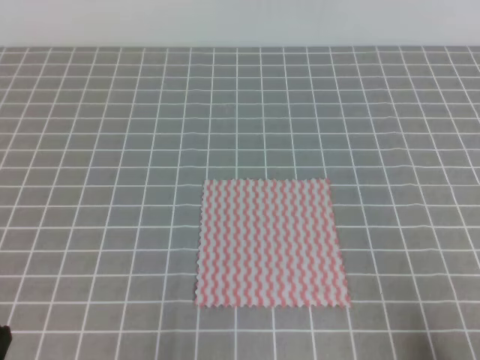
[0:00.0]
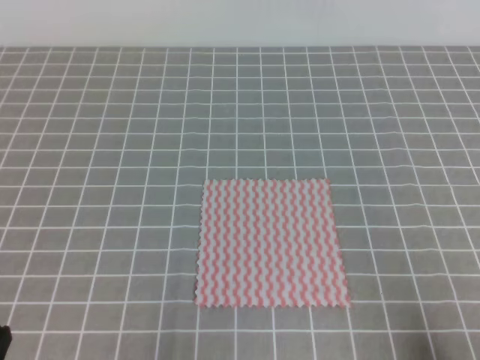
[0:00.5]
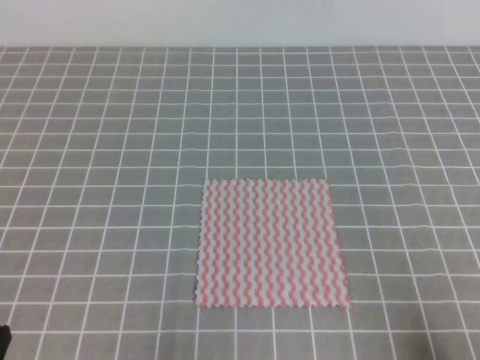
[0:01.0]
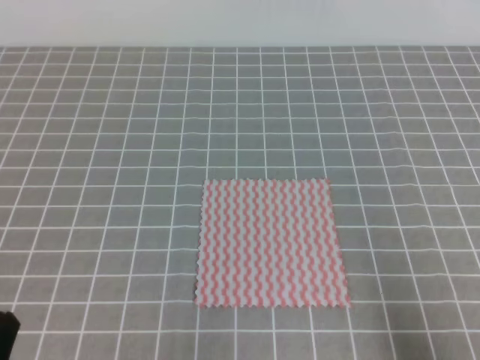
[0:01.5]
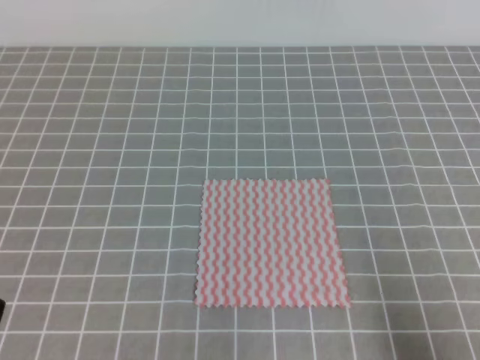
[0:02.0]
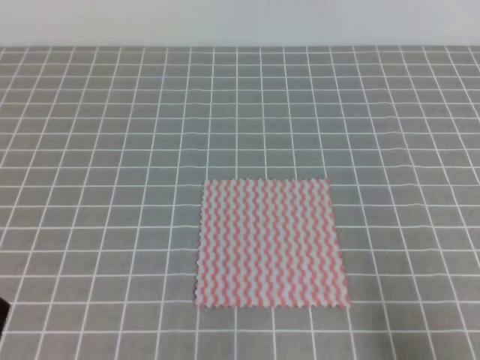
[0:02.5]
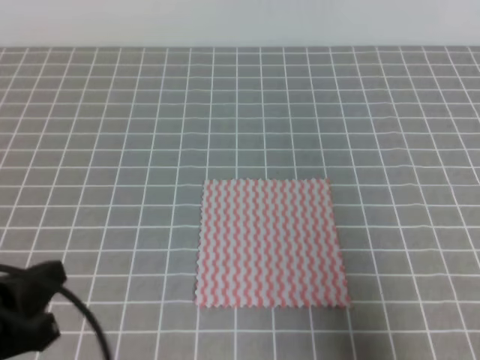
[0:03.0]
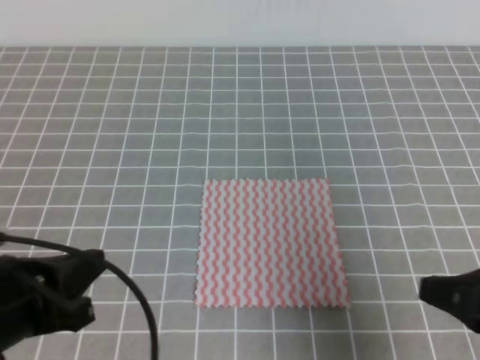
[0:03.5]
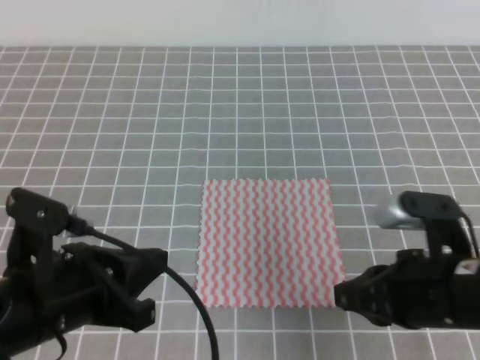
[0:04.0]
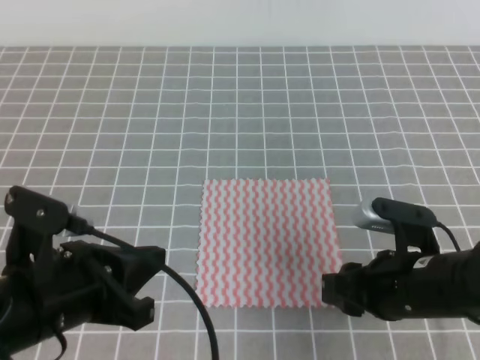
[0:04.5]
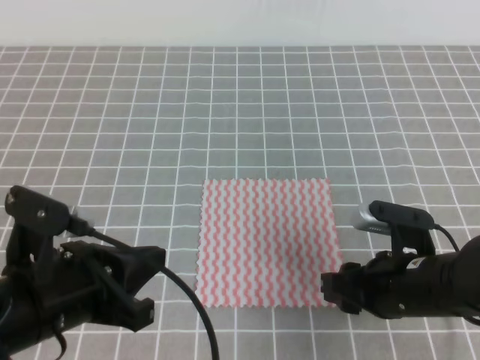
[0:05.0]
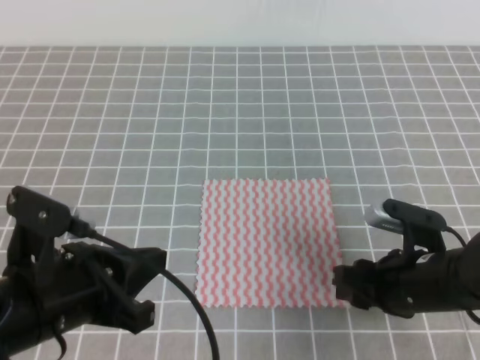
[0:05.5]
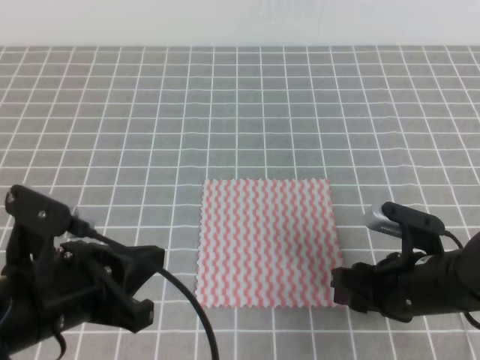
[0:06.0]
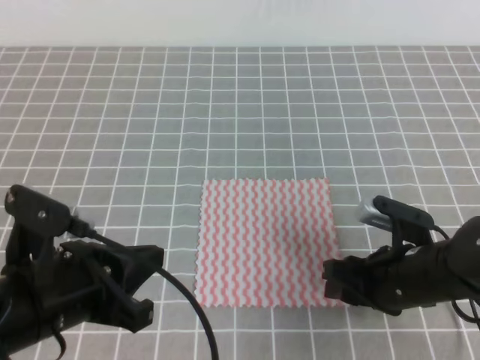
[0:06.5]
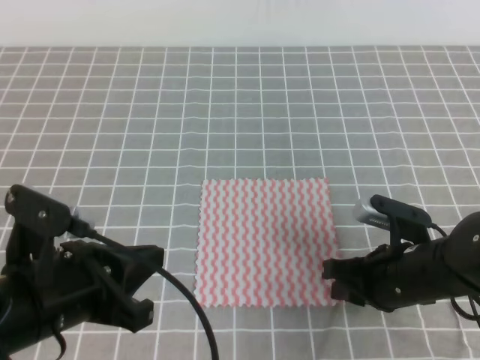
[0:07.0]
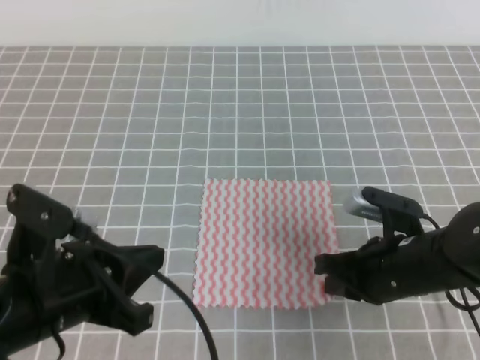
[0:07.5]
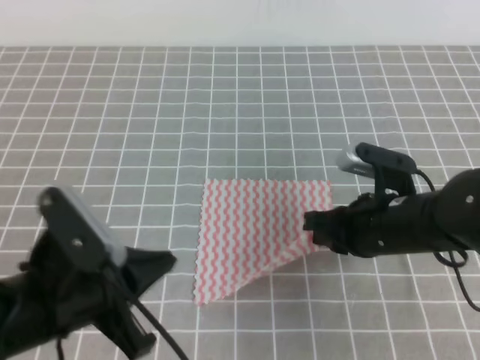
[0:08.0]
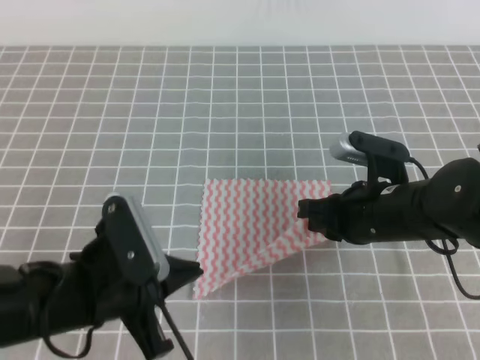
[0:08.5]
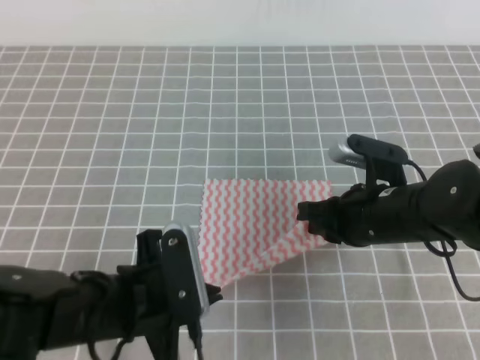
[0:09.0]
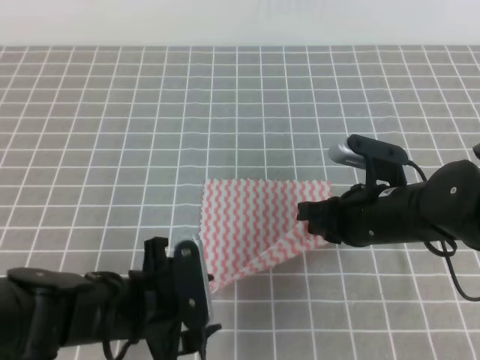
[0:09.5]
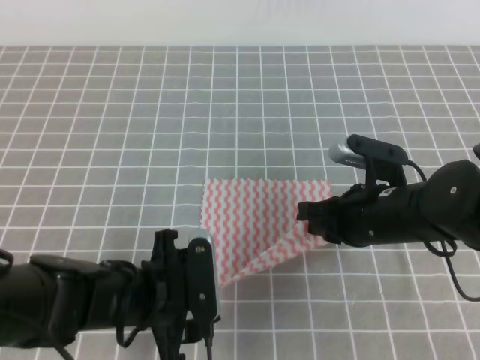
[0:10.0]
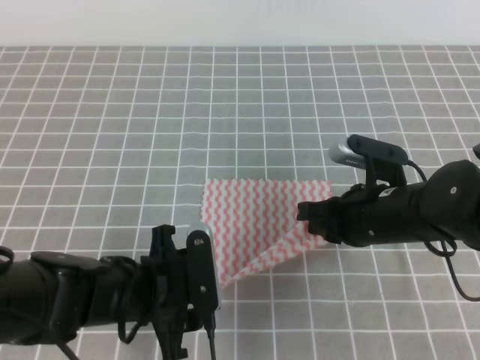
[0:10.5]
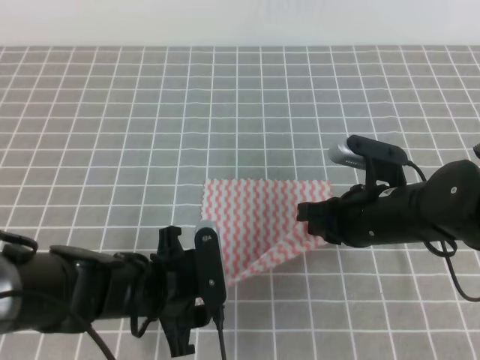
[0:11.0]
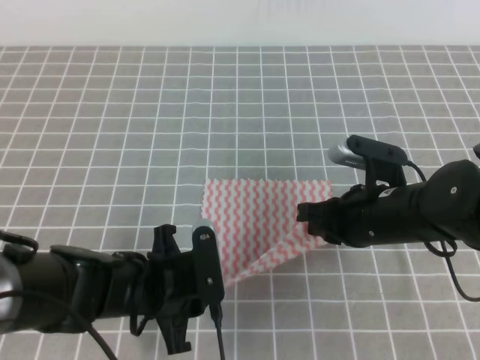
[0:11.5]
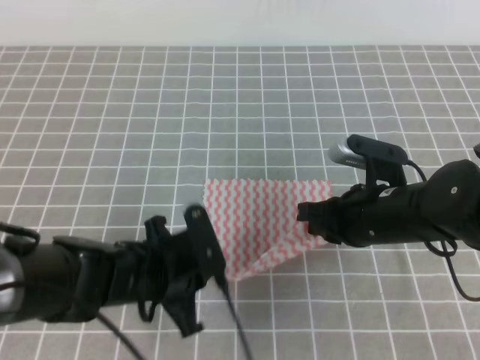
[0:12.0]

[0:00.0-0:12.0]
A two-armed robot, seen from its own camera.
0:02.0 to 0:04.0: The right gripper is displaced to the left and forward by approximately 20 cm. Meanwhile the left gripper is displaced forward and to the right by roughly 15 cm.
0:04.0 to 0:06.0: The right gripper shifts roughly 10 cm downward and forward, and opens.
0:06.0 to 0:08.0: The right gripper changes place by about 5 cm, and closes its fingers.
0:08.0 to 0:10.0: The left gripper heads downward and to the right, covering approximately 10 cm, and opens its fingers.
0:10.0 to 0:12.0: The left gripper closes its fingers.

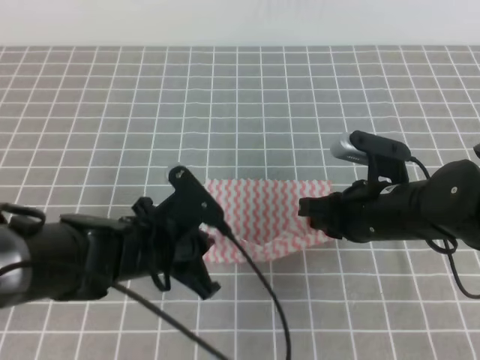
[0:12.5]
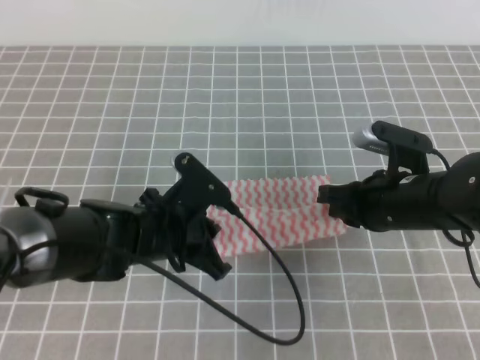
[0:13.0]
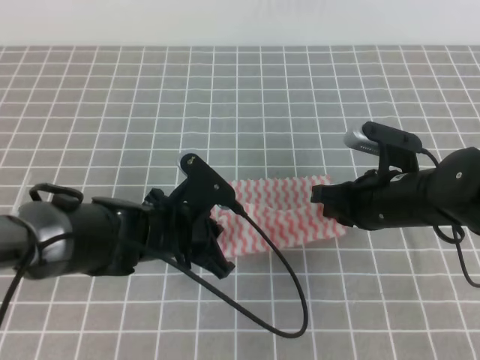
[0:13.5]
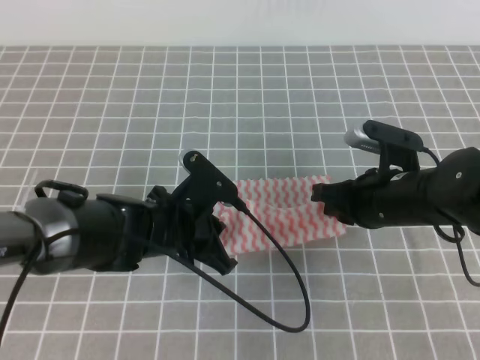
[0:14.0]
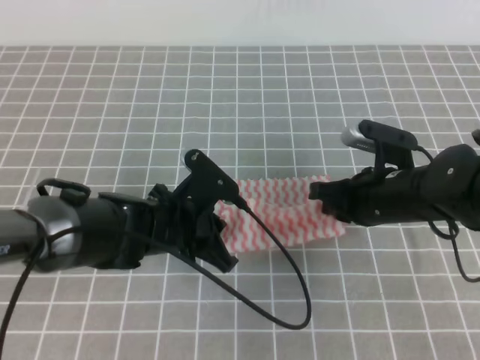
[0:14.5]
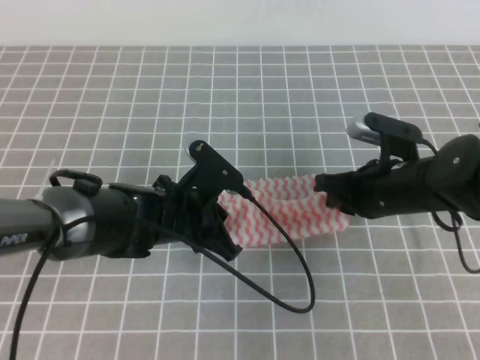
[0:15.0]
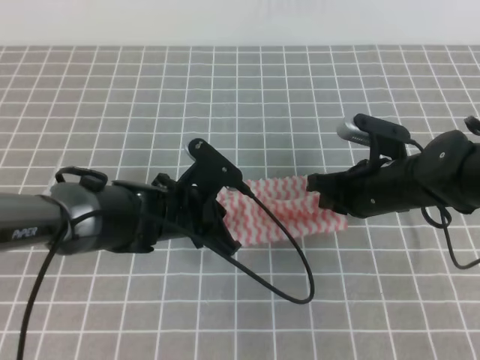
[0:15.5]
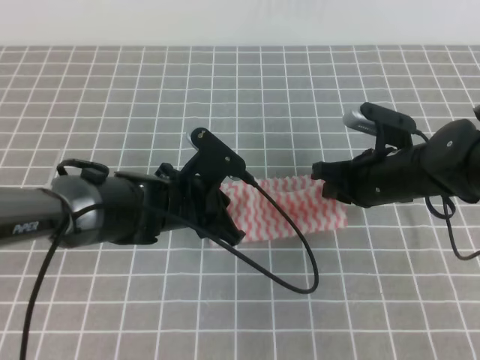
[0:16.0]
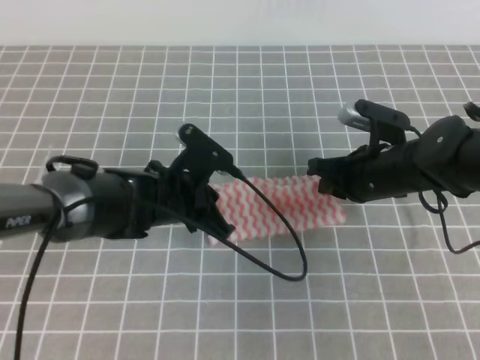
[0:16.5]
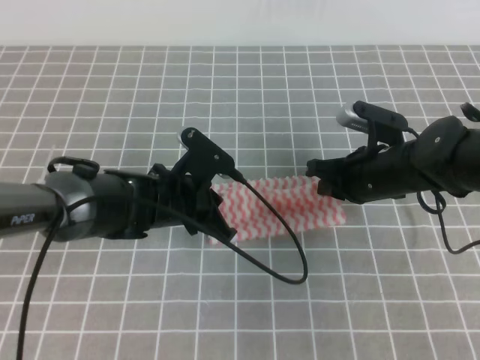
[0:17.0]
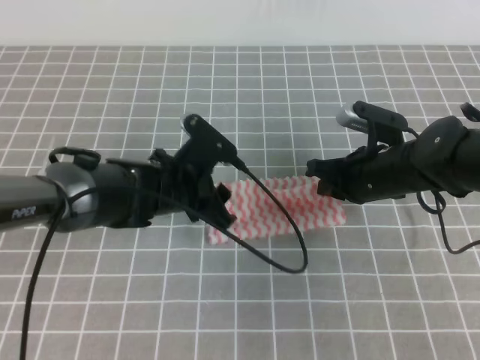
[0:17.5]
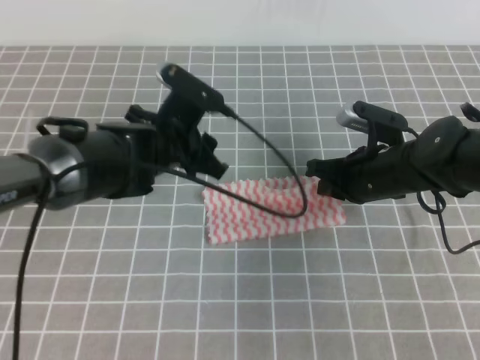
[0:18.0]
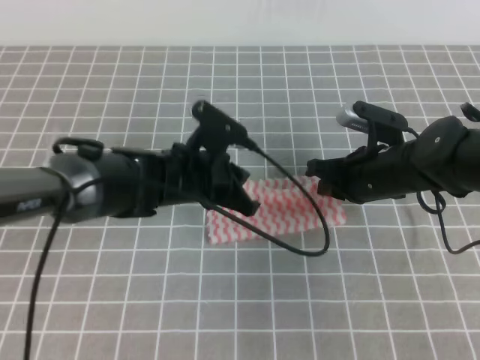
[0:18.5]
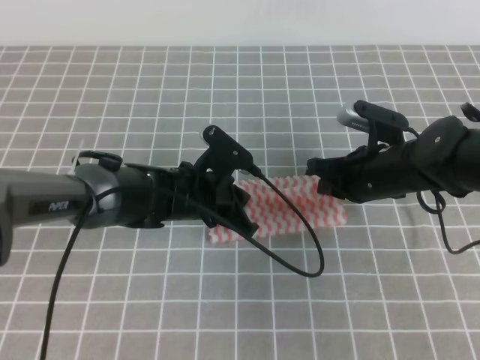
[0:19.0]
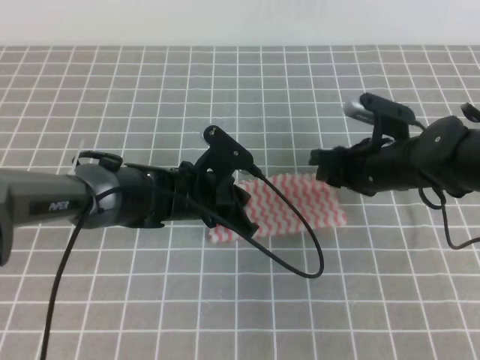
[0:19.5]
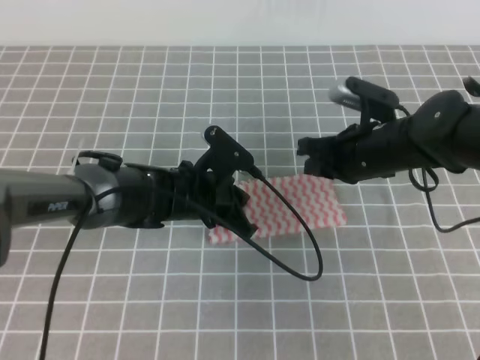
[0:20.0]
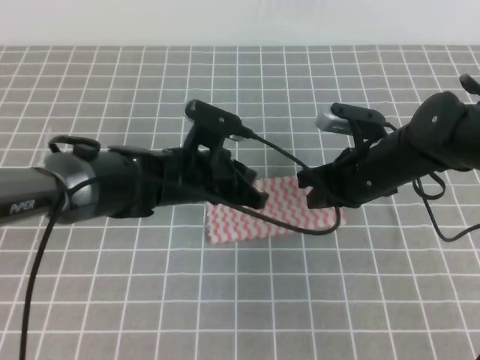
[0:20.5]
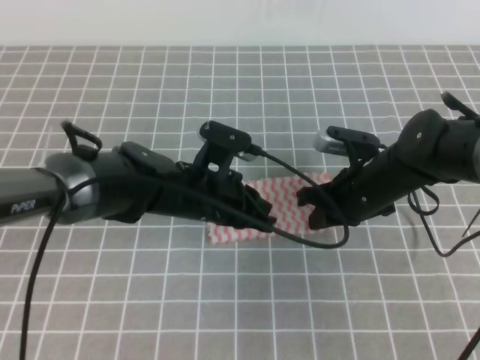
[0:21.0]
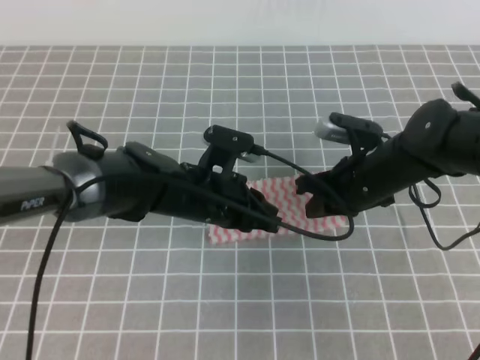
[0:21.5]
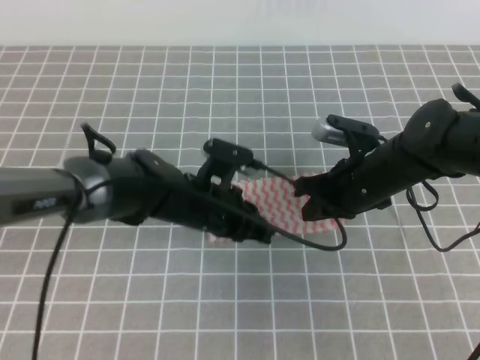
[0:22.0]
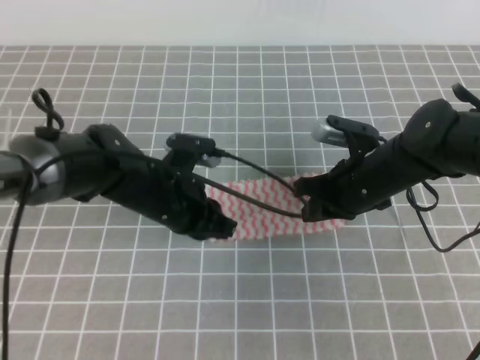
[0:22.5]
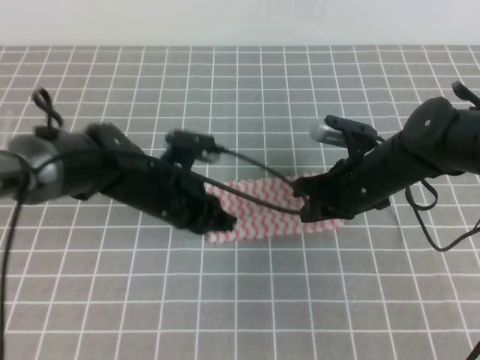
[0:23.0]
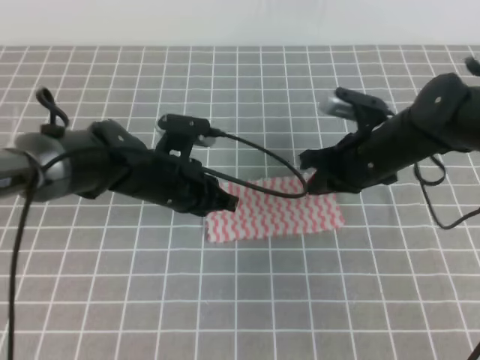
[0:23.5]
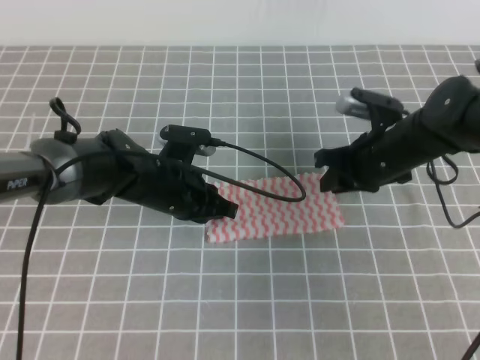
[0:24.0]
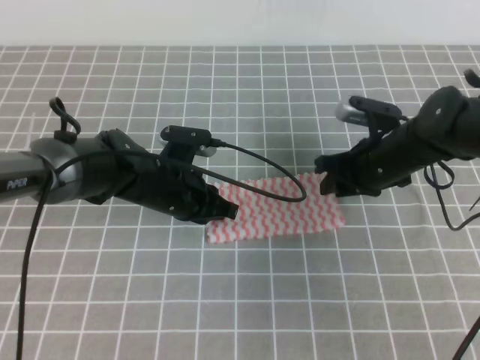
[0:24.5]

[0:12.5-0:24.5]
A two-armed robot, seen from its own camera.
0:12.5 to 0:14.5: There are only small adjustments of the grippers.
0:16.5 to 0:18.5: The left gripper opens and closes again.
0:18.5 to 0:20.5: The right gripper opens, then closes again.
0:22.5 to 0:24.5: The right gripper opens up.

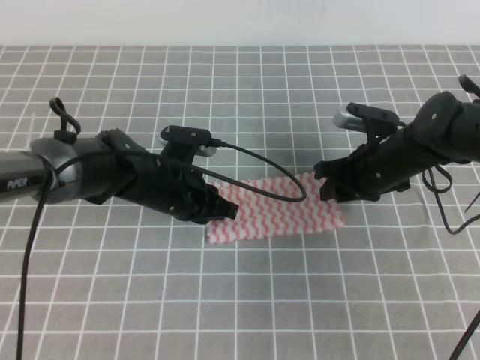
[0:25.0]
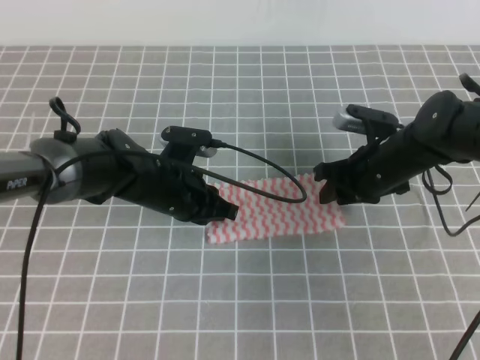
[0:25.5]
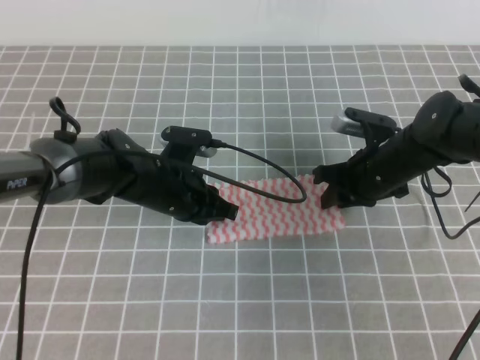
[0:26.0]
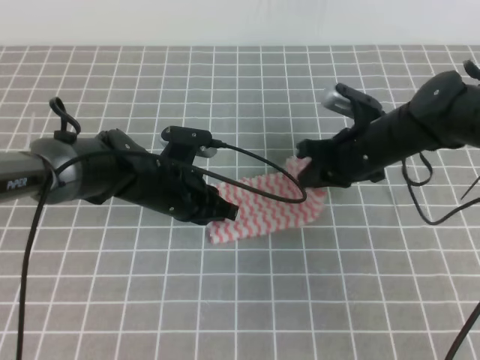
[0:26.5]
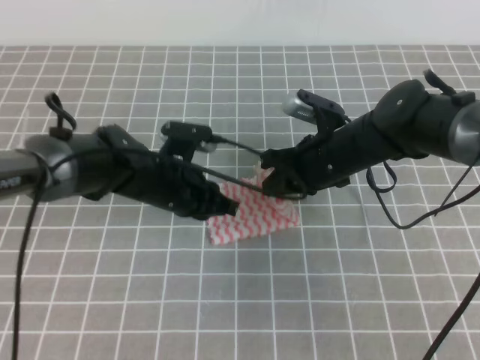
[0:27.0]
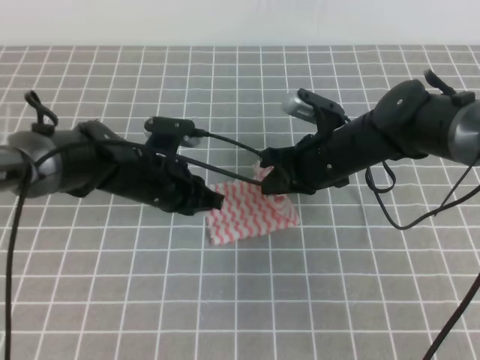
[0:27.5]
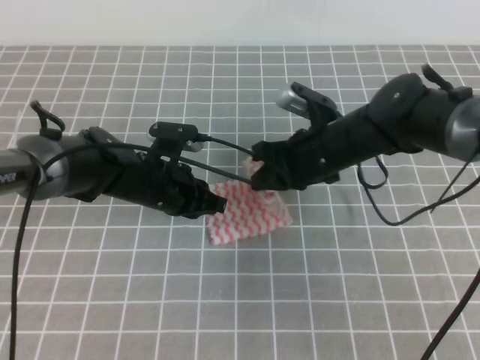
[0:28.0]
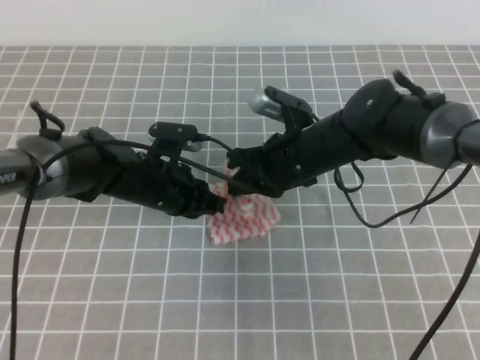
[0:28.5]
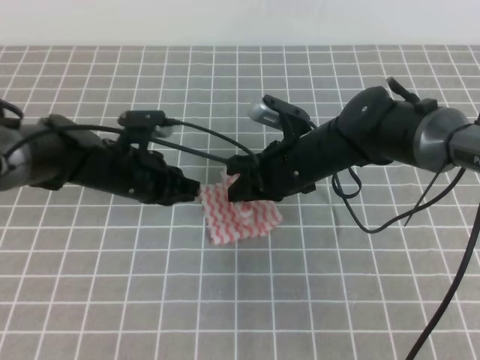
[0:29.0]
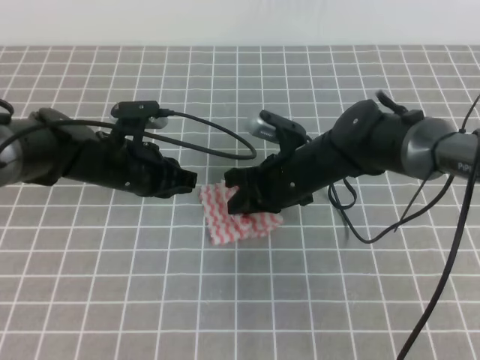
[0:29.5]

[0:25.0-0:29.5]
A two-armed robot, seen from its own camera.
0:25.0 to 0:27.0: The right gripper is displaced to the left by approximately 5 cm, and closes up.
0:27.0 to 0:29.5: The left gripper goes about 5 cm to the left.
